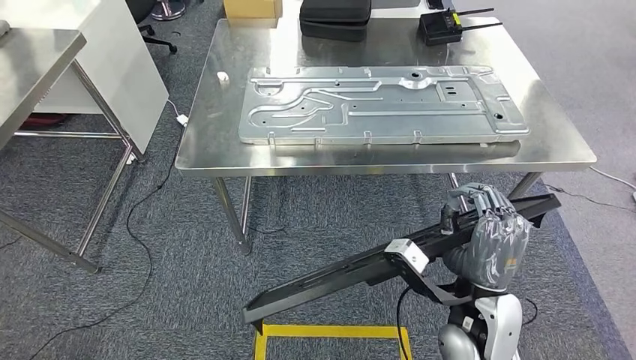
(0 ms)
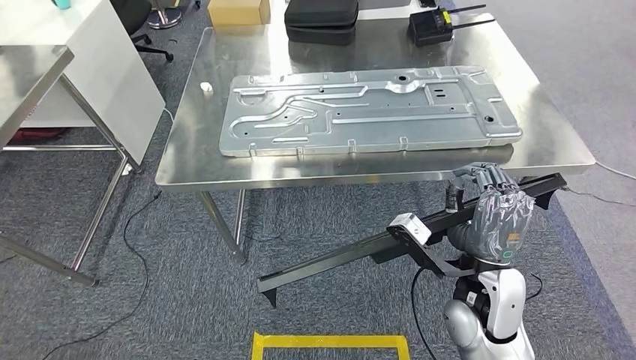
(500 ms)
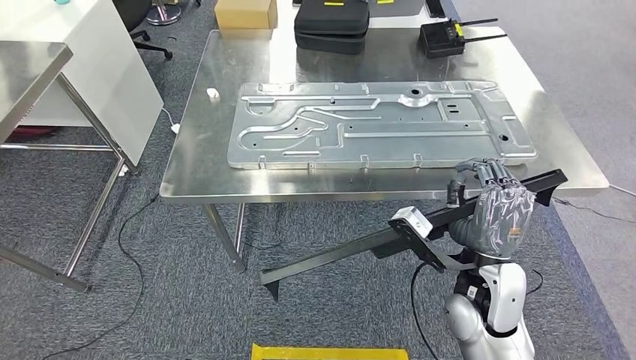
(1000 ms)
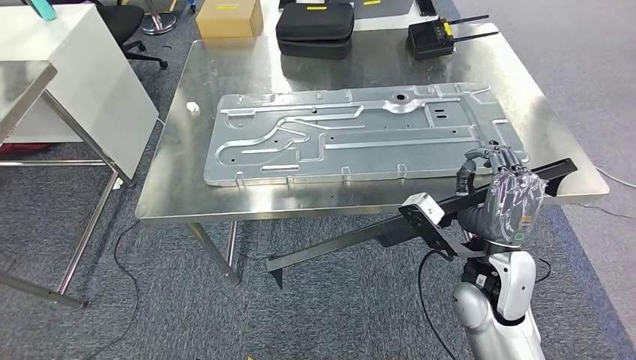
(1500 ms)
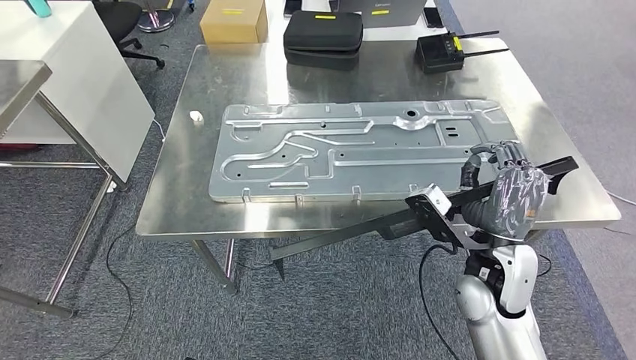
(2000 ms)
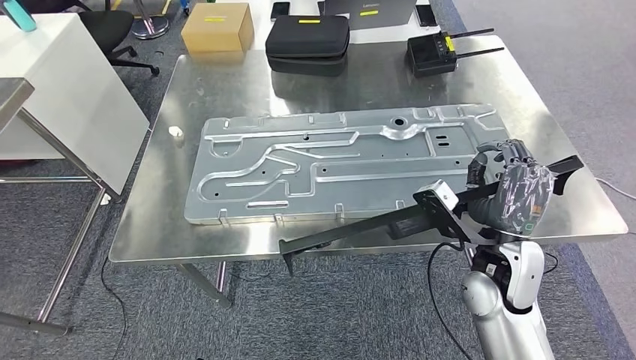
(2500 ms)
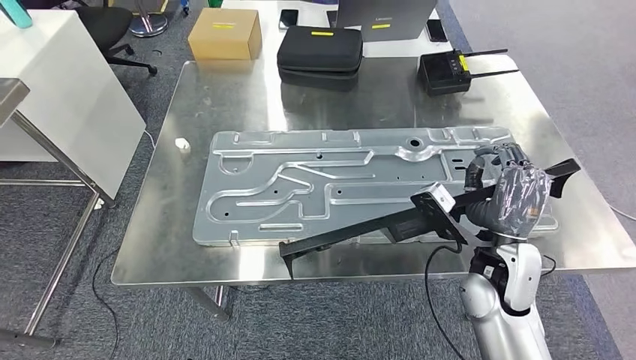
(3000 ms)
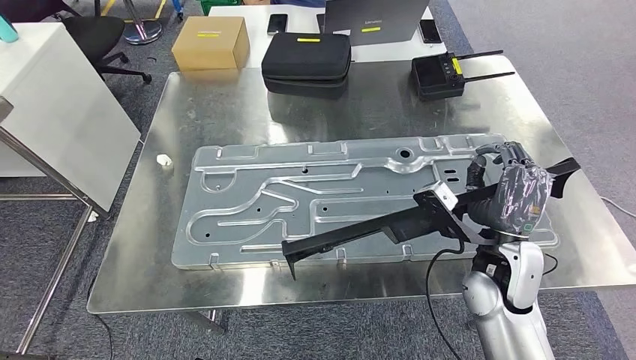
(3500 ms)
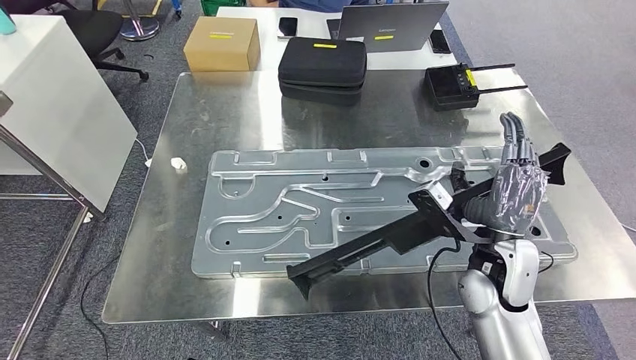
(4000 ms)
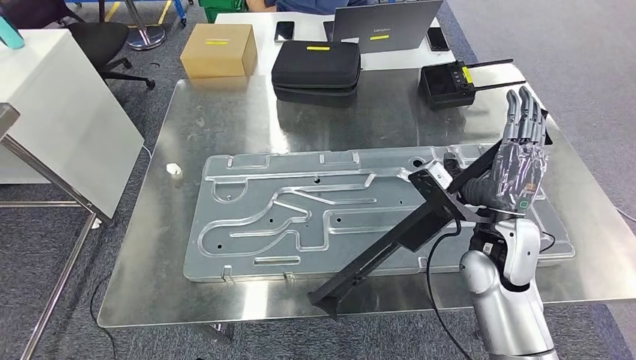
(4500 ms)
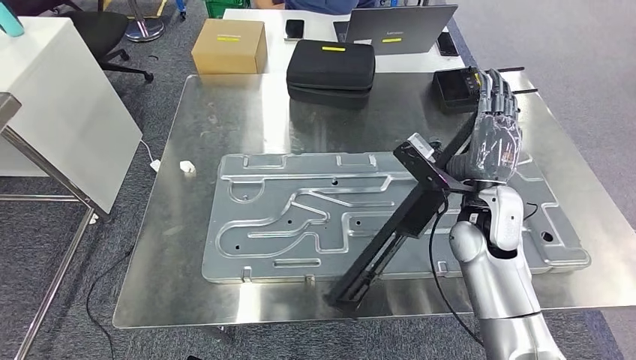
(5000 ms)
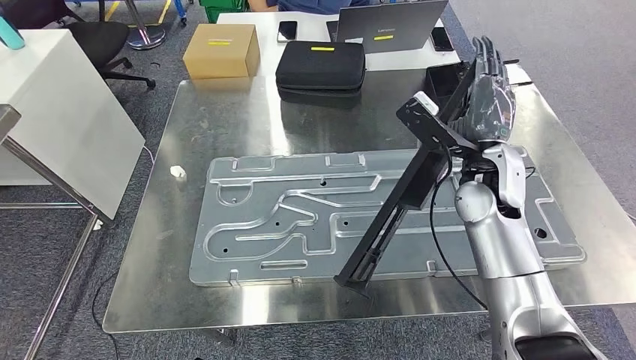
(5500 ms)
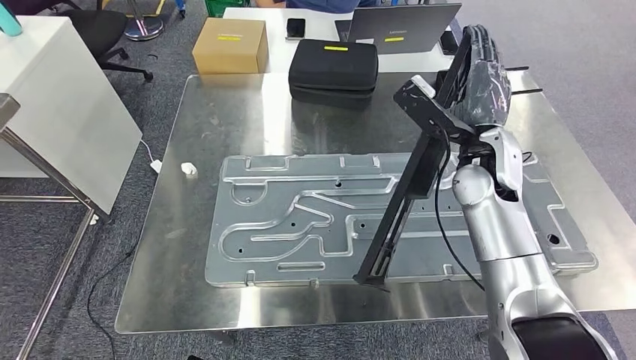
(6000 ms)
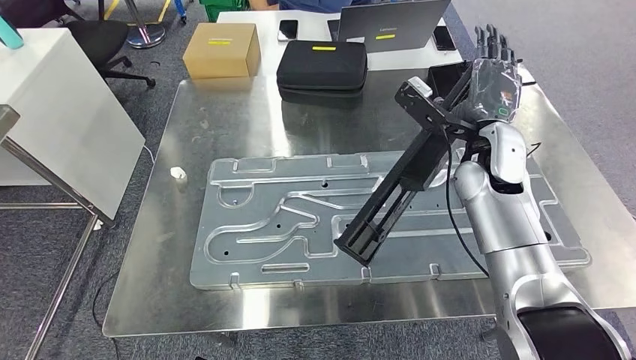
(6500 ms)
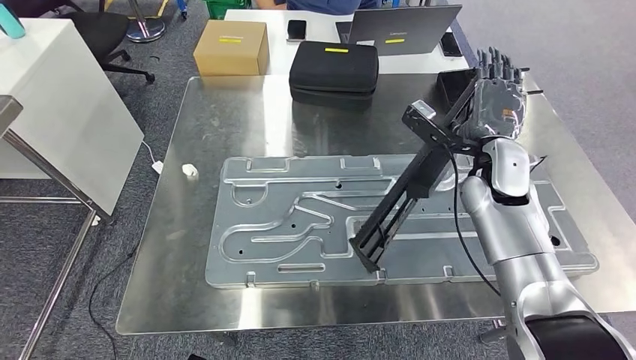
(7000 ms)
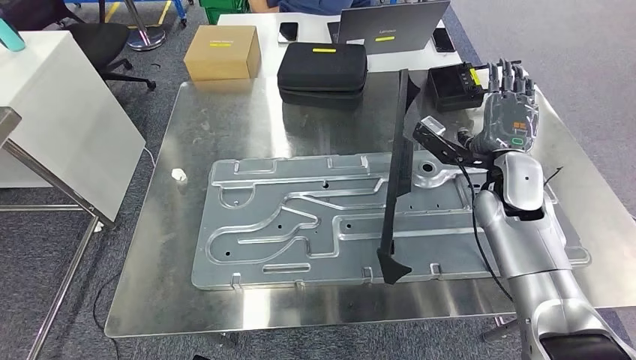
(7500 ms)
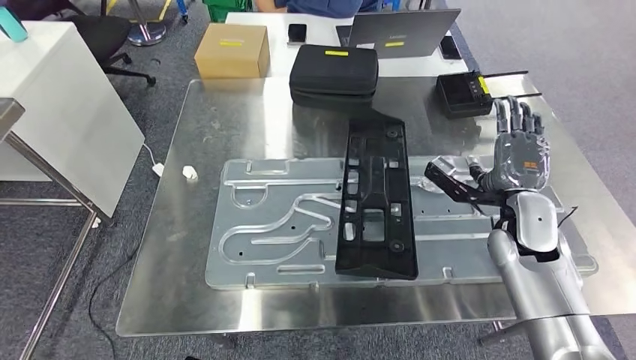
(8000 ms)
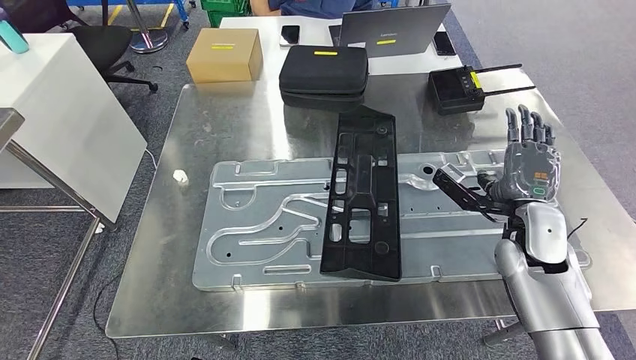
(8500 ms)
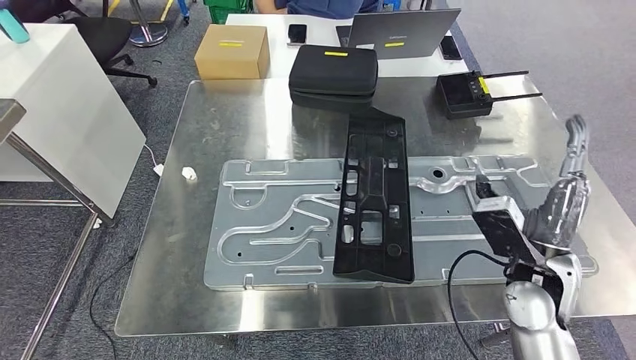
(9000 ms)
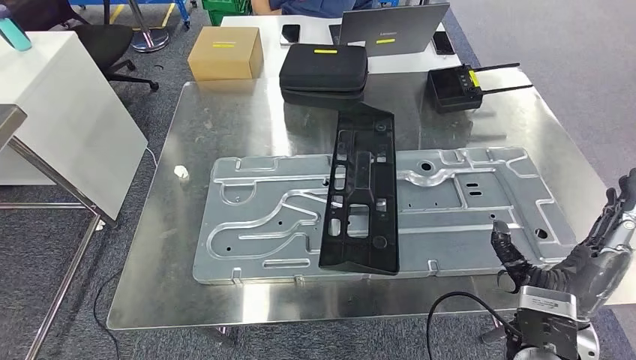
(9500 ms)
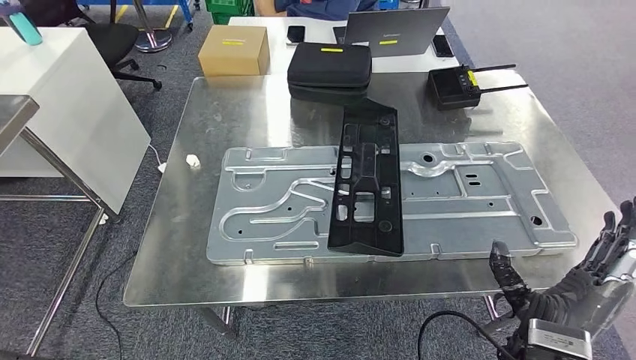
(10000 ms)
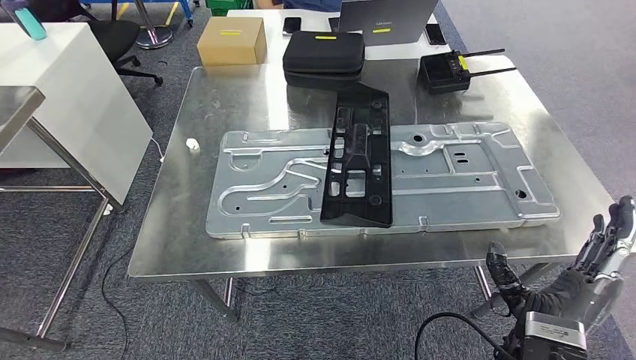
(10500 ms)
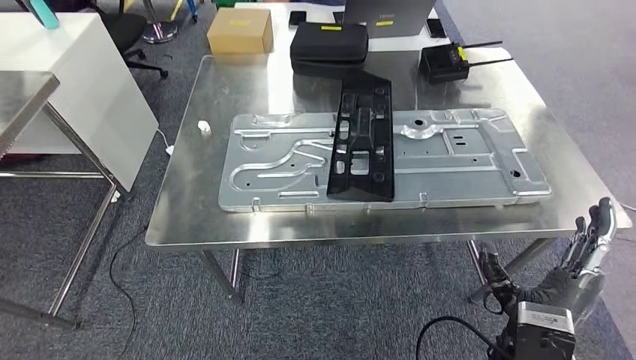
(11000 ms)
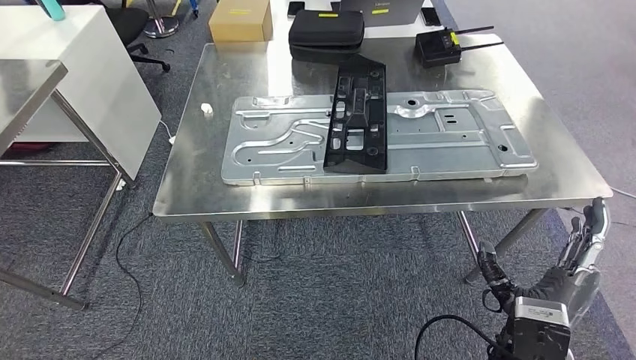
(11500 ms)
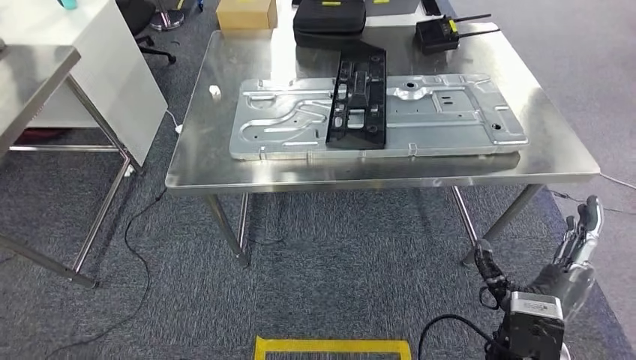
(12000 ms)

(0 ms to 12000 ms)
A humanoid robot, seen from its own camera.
Step, 4500 ms - 9500 ms: Insert the large material into the corresponding slot on the workbench.

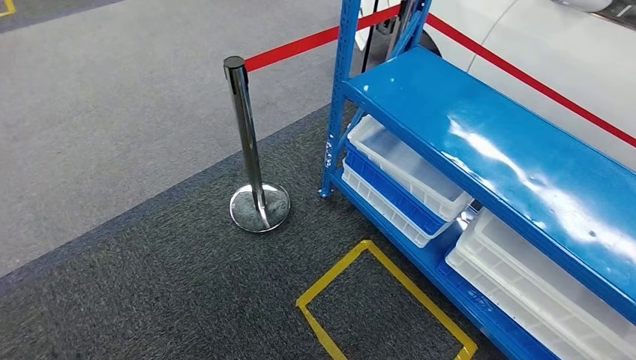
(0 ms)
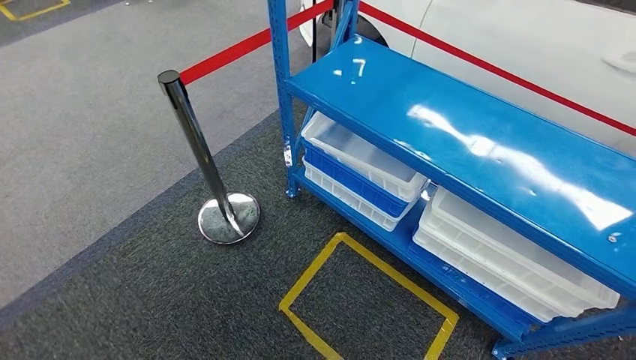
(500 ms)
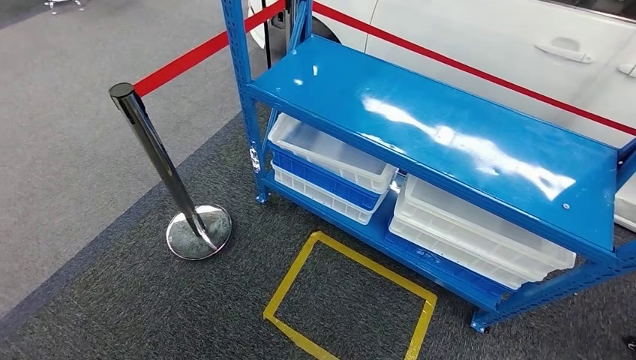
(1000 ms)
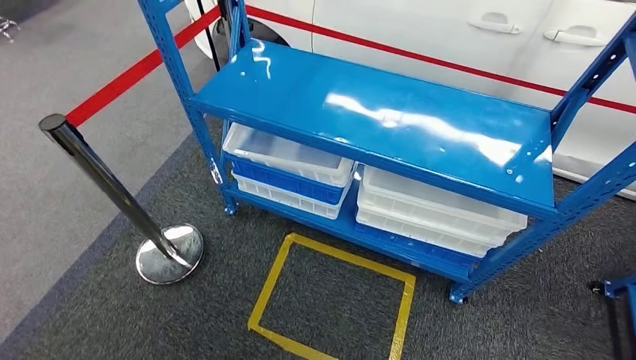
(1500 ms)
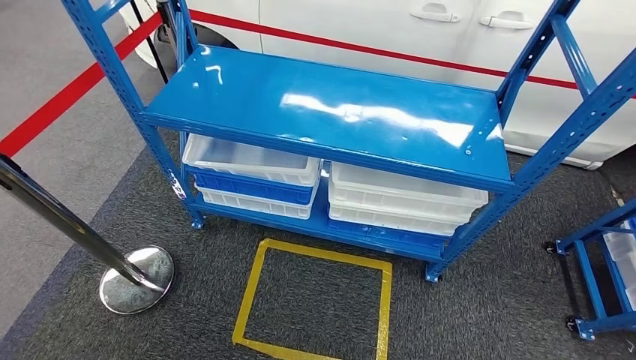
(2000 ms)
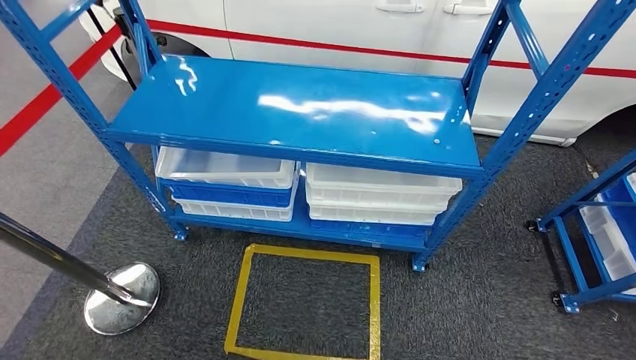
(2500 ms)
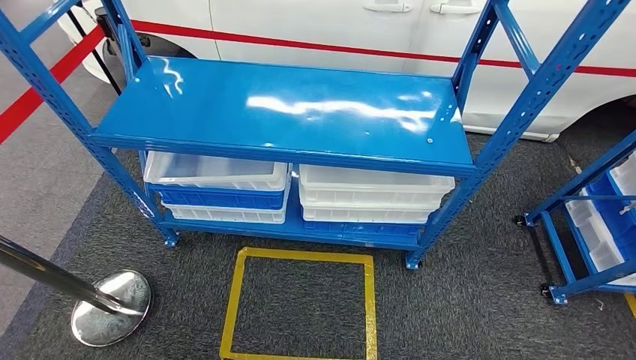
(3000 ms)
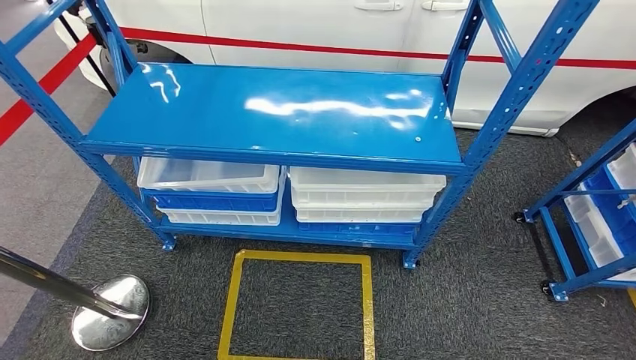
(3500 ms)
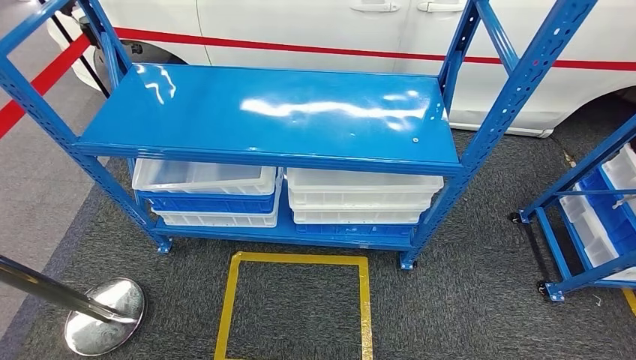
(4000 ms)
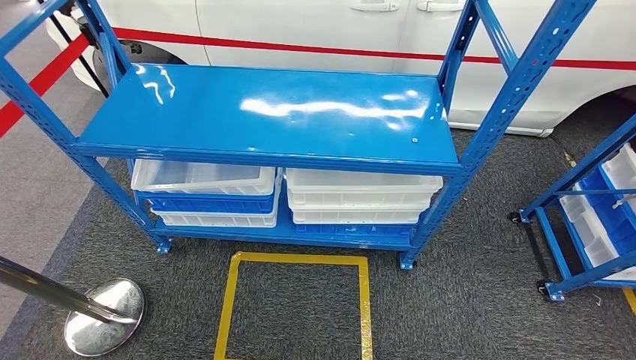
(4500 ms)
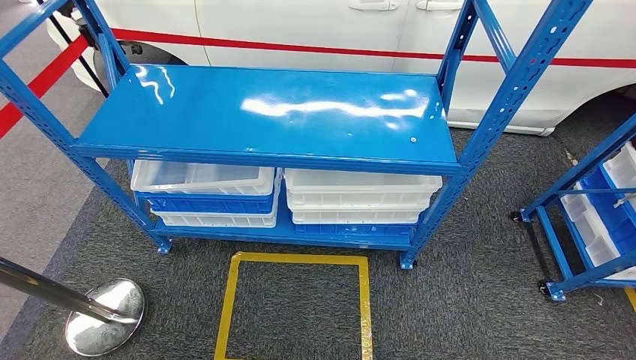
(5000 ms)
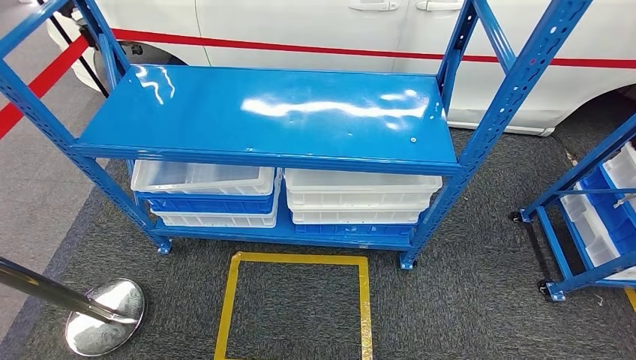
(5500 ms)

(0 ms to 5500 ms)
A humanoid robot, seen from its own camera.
Step, 0 ms - 5500 ms: Move to the initial position of the shelf.
3500 ms - 5500 ms: The left hand heads backward, covering some 5 cm; the right hand is displaced to the right by some 5 cm.

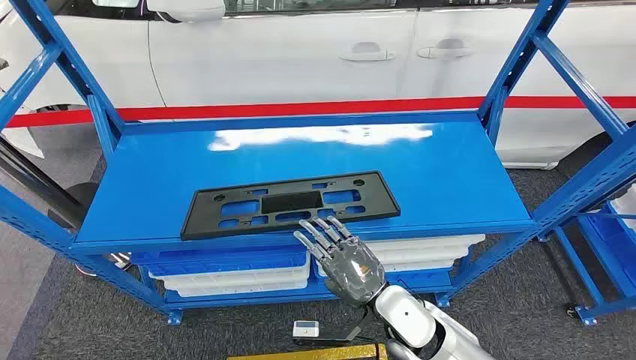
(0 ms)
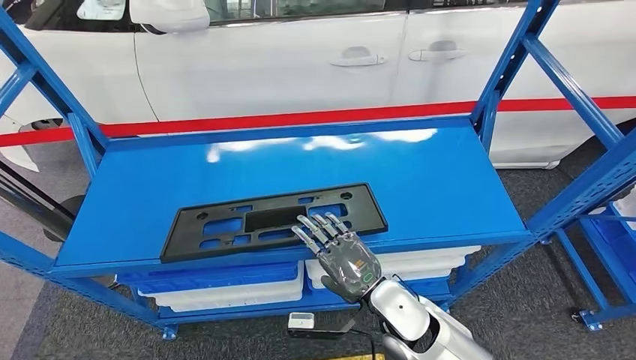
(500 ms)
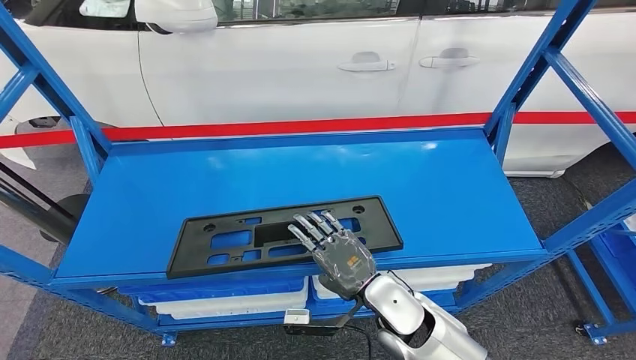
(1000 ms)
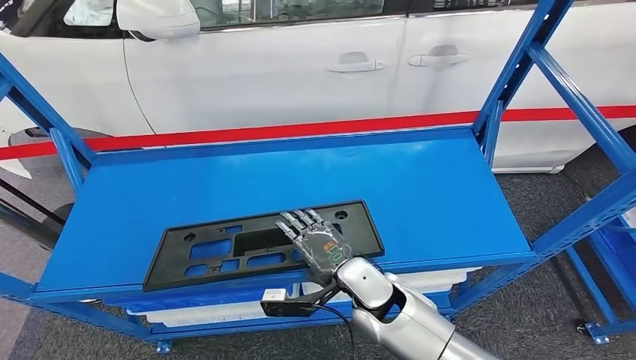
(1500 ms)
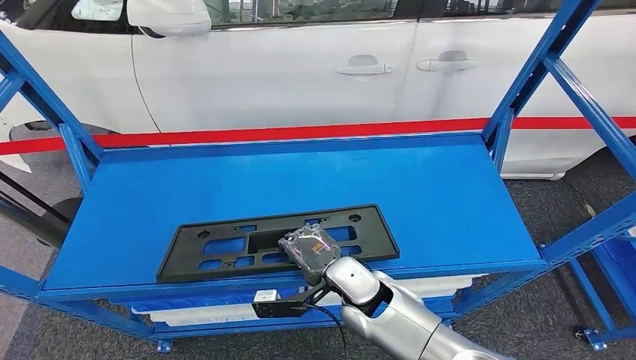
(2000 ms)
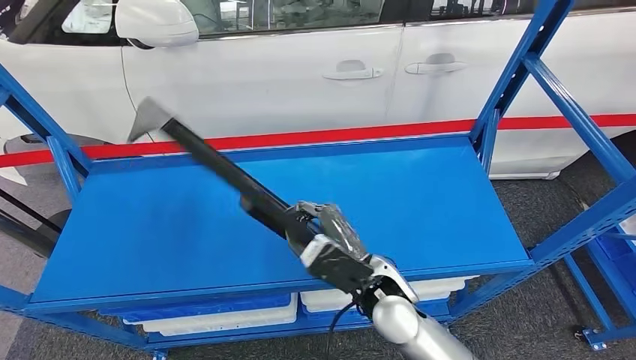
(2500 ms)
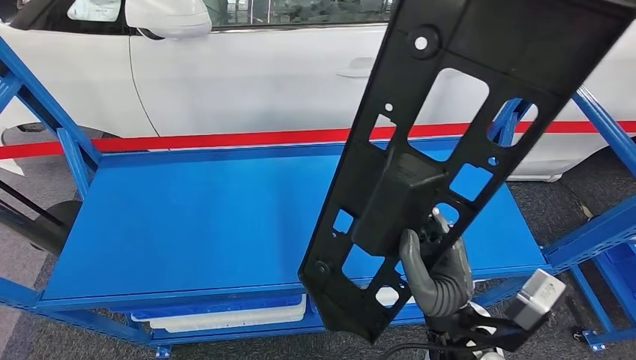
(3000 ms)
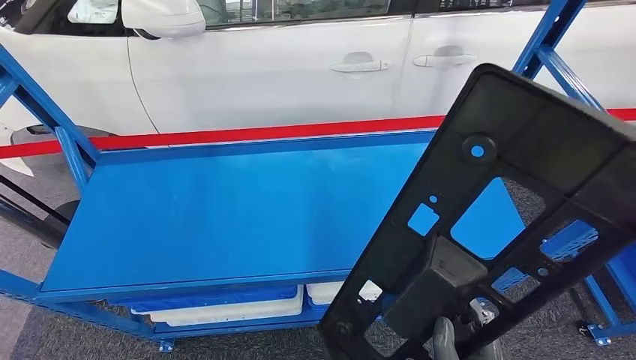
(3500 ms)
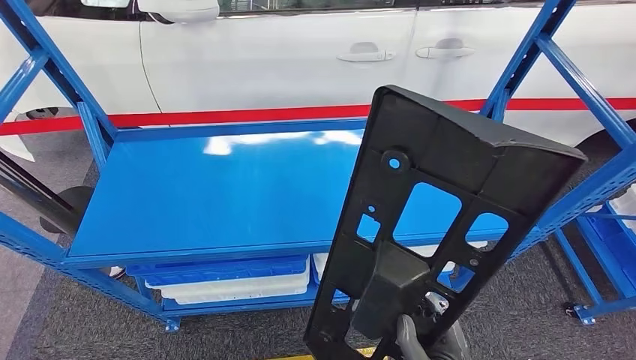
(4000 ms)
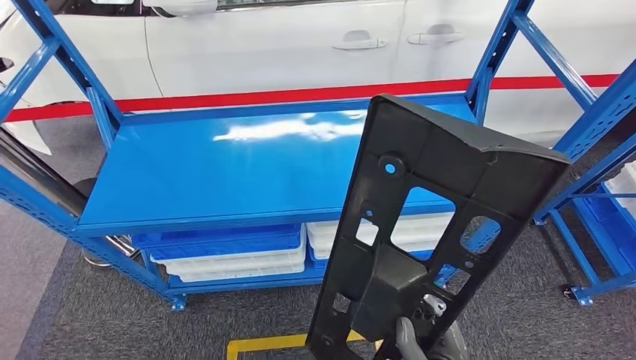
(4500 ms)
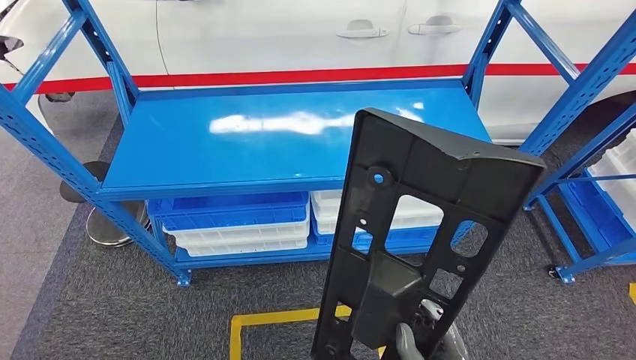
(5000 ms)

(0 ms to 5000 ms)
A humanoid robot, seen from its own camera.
Step, 0 ms - 4500 ms: Pick up the large material from the shelf.
